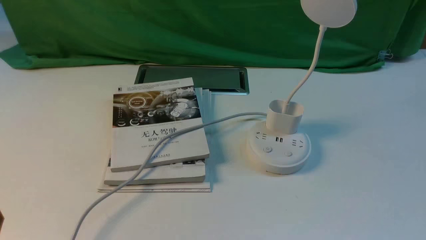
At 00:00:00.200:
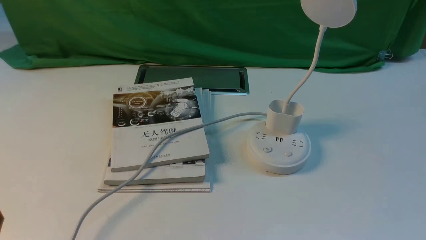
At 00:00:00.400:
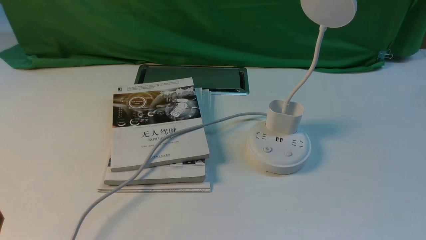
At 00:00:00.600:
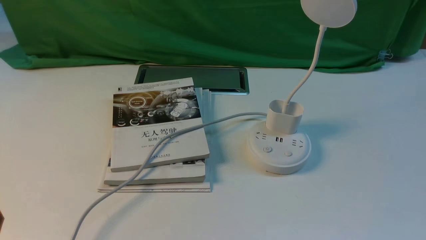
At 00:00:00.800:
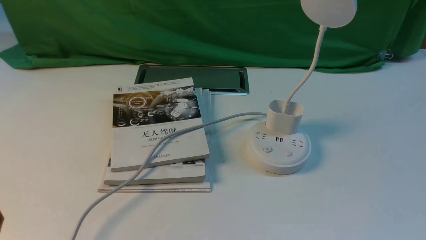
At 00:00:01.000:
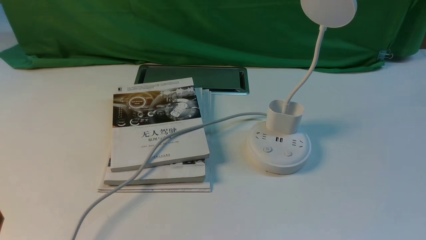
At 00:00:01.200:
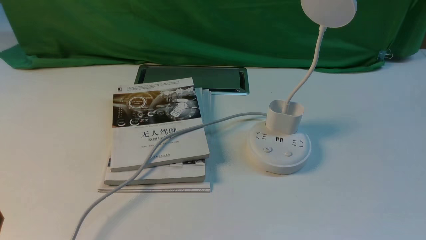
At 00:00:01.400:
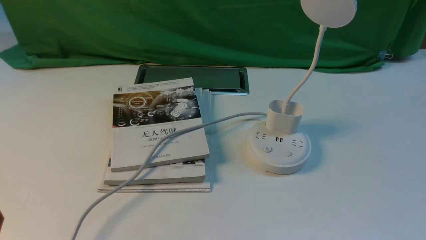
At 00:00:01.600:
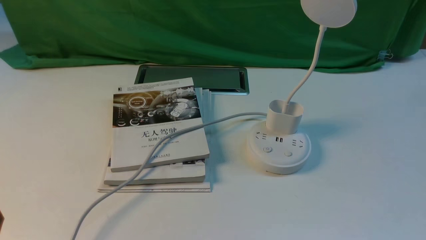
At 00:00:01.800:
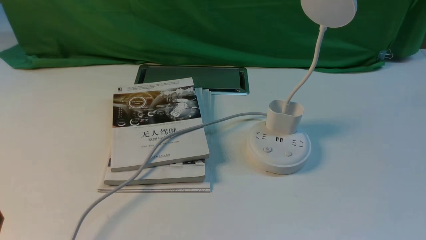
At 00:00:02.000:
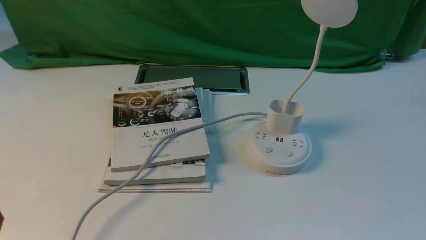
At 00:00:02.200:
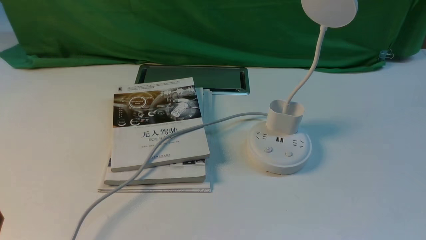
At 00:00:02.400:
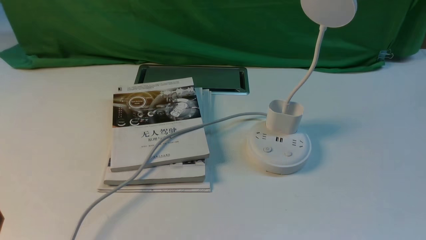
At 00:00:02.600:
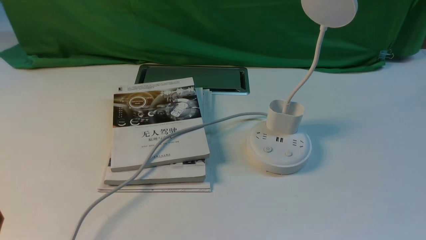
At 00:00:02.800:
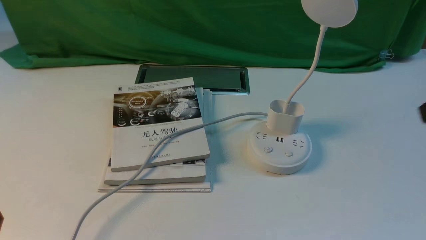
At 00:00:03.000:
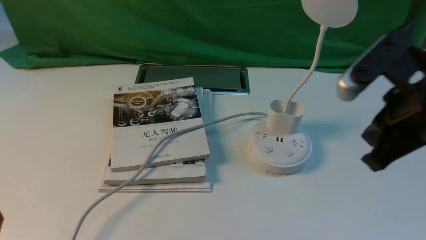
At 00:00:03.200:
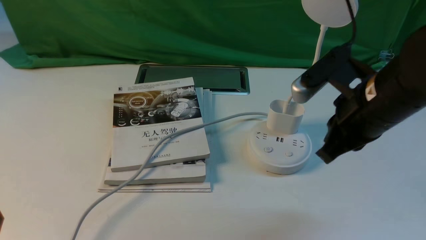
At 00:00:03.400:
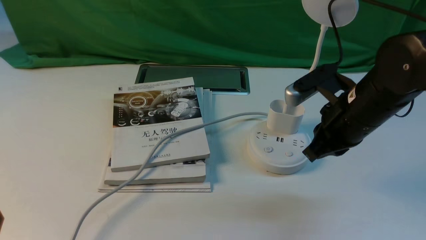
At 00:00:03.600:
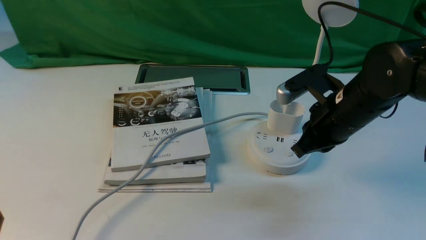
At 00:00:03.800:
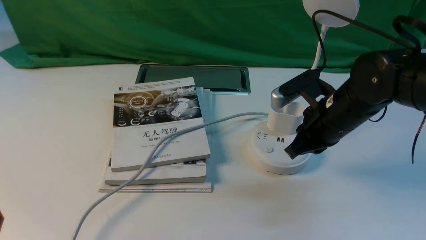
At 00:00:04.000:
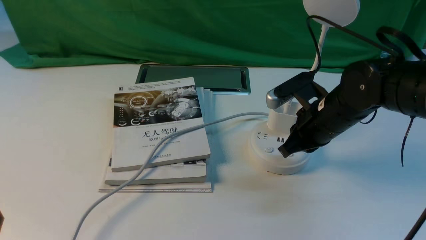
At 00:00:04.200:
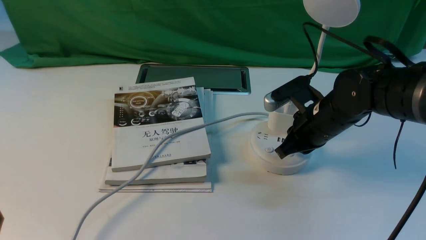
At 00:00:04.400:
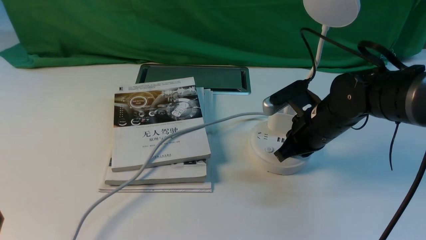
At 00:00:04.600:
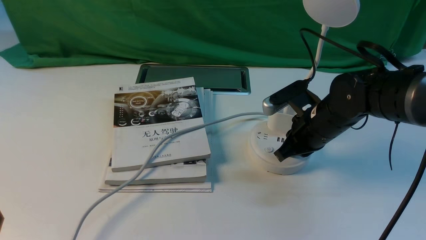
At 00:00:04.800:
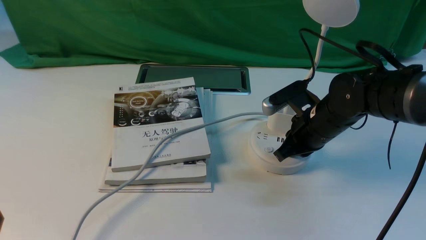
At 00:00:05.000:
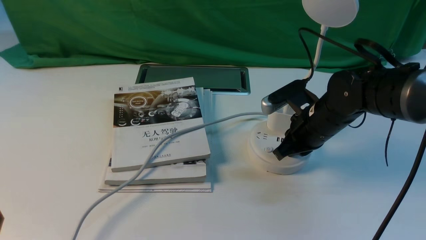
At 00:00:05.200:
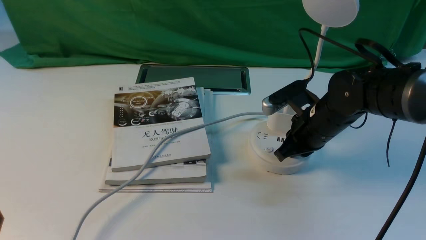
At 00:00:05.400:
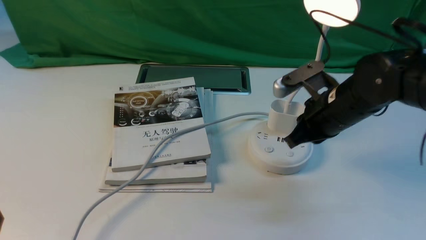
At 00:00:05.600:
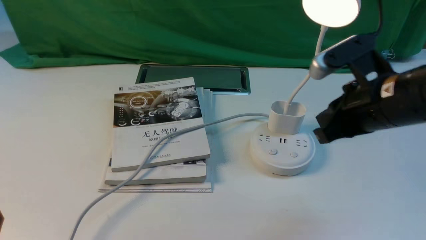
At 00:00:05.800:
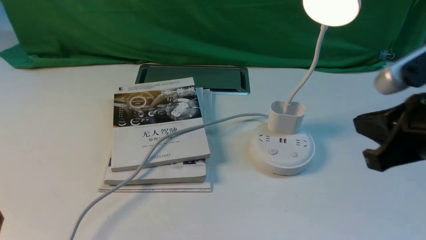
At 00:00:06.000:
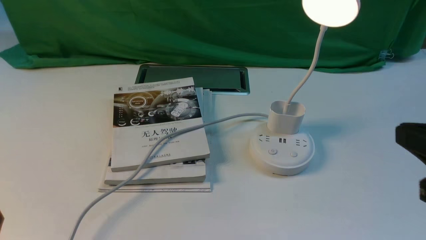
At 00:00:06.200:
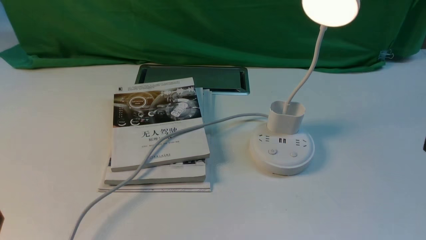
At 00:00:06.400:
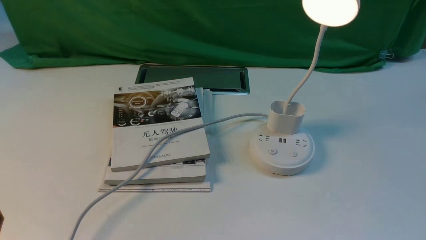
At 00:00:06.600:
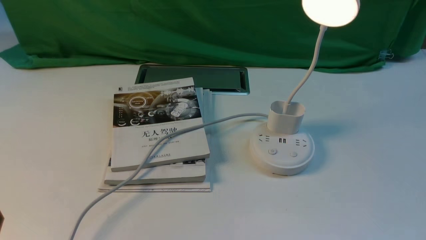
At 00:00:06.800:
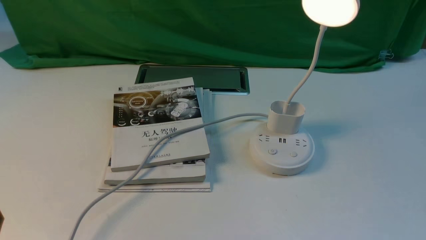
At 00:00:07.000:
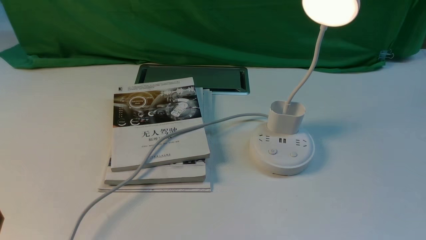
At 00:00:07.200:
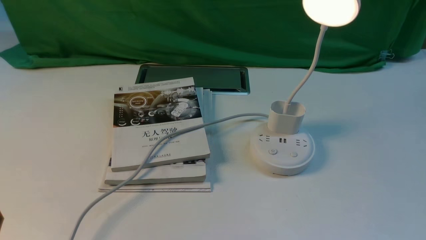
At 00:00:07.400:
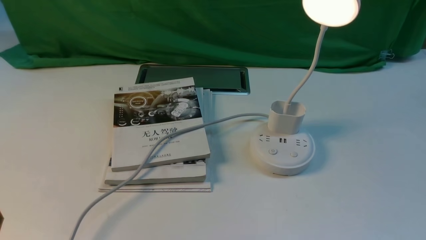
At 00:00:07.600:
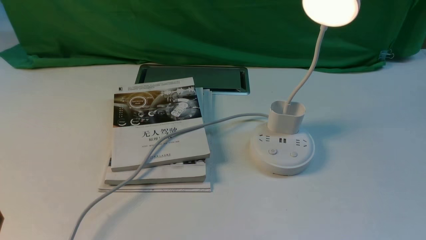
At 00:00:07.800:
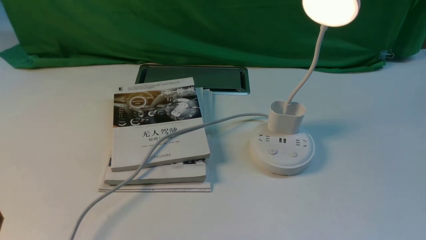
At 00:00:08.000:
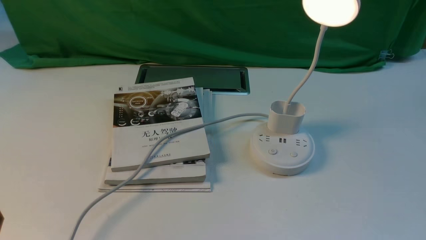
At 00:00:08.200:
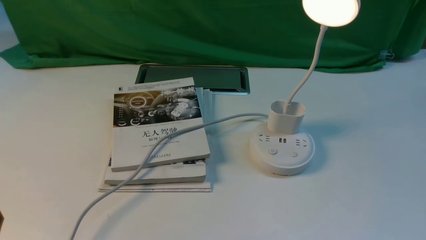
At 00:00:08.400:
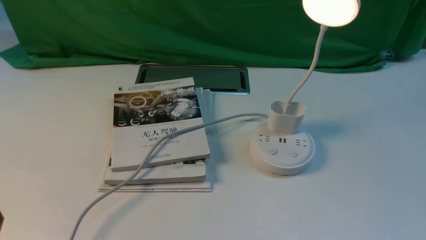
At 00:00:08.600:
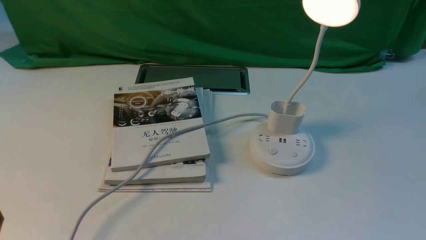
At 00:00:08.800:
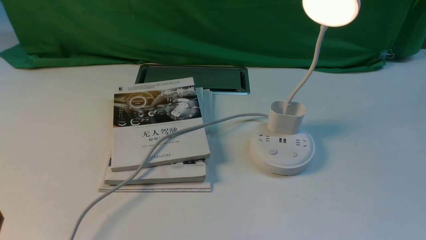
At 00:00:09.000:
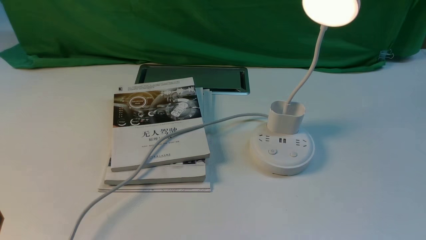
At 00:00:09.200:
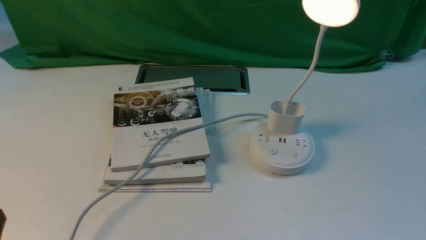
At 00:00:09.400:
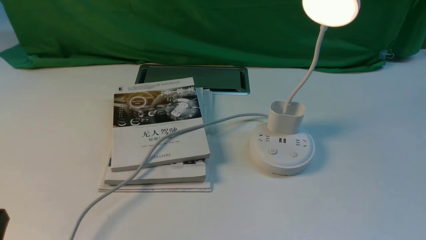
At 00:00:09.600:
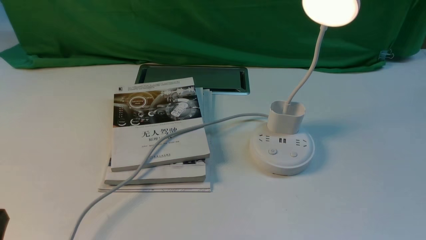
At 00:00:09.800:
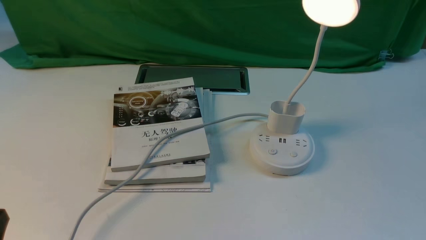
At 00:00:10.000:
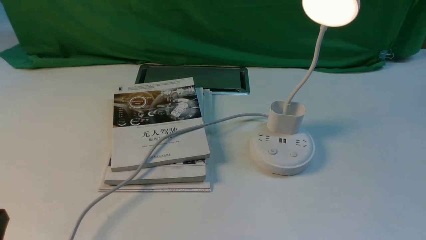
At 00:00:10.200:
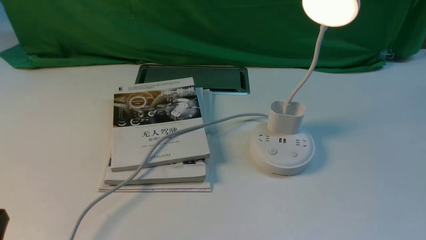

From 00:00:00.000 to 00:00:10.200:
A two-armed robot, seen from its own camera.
Step, from 00:00:00.000 to 00:00:05.400: use the right arm to press the button switch on the lamp holder.
From 00:00:01.400 to 00:00:03.000: The right gripper heads forward, upward and to the left, covering about 25 cm, and closes its fingers.
From 00:00:03.000 to 00:00:04.400: The right gripper goes some 20 cm downward and forward.
From 00:00:04.400 to 00:00:05.800: The right gripper shifts approximately 25 cm backward, upward and to the right.
From 00:00:05.800 to 00:00:07.200: The right gripper heads backward, downward and to the right, covering approximately 20 cm, and opens up.
From 00:00:08.800 to 00:00:10.200: Both grippers stay put.
